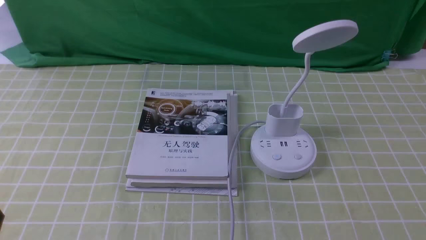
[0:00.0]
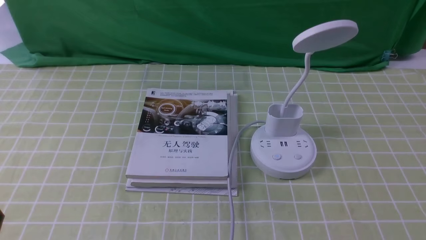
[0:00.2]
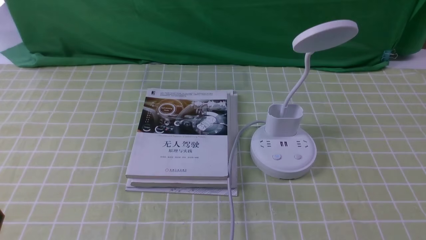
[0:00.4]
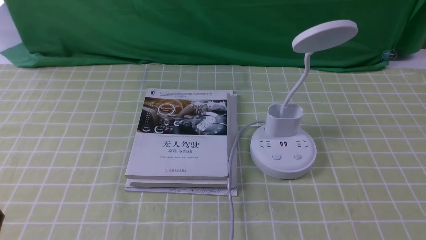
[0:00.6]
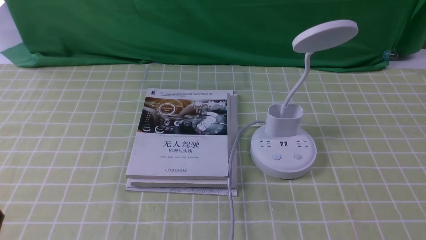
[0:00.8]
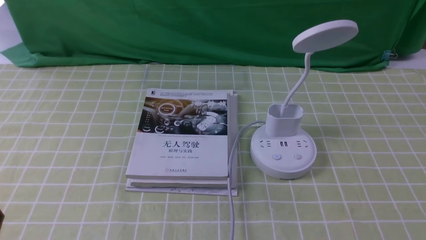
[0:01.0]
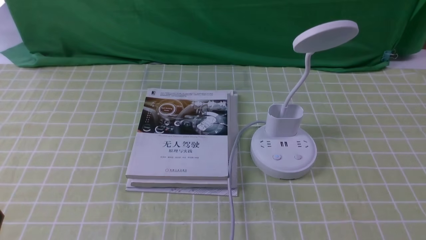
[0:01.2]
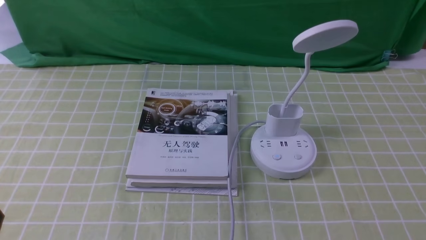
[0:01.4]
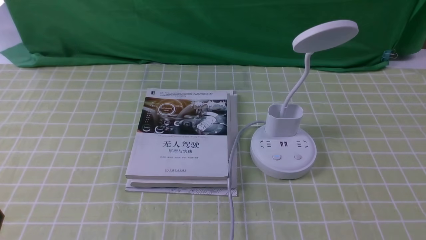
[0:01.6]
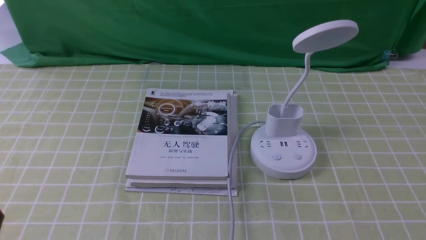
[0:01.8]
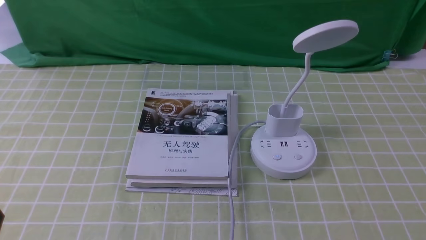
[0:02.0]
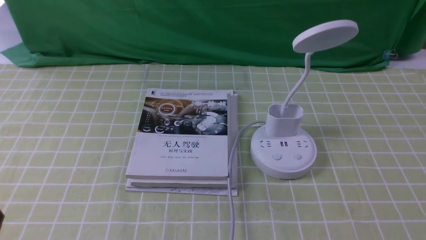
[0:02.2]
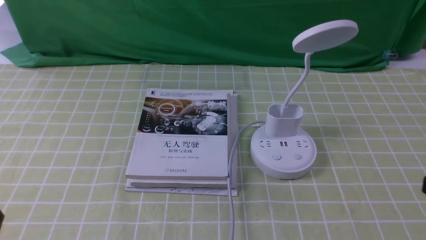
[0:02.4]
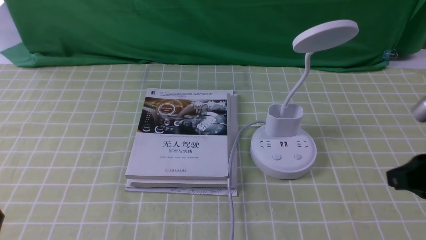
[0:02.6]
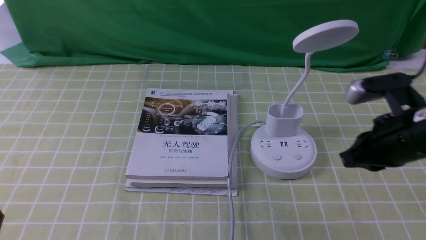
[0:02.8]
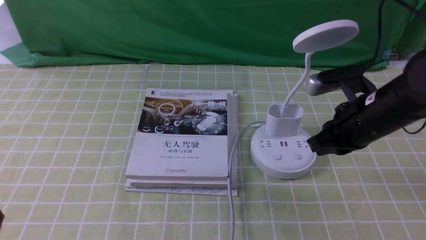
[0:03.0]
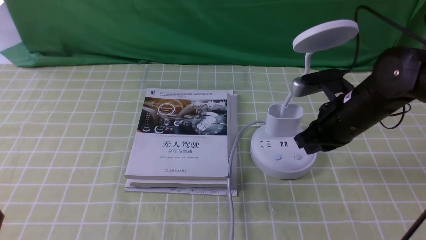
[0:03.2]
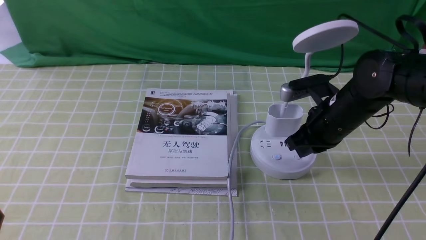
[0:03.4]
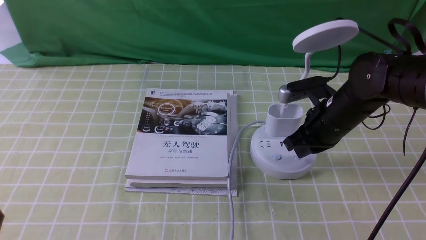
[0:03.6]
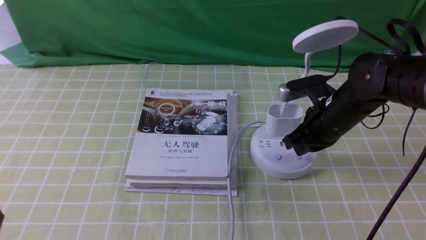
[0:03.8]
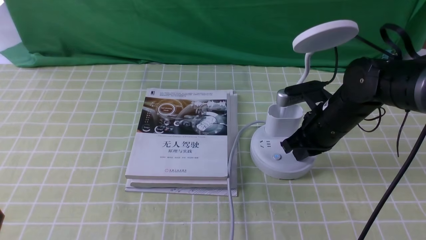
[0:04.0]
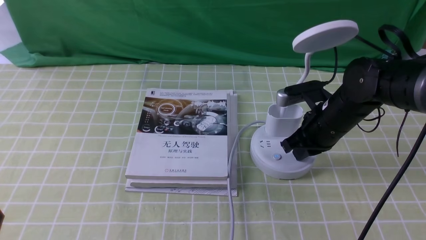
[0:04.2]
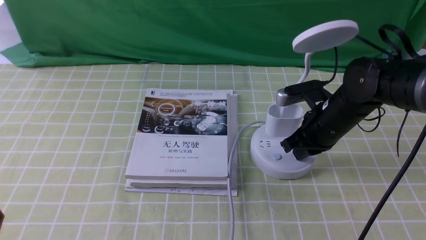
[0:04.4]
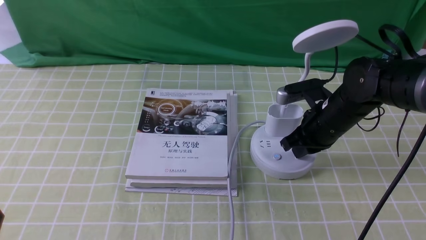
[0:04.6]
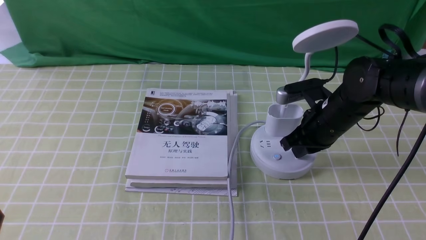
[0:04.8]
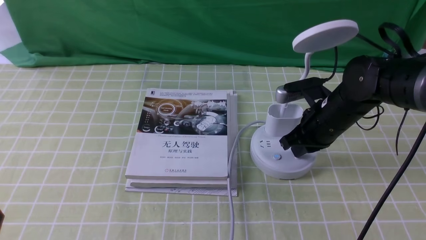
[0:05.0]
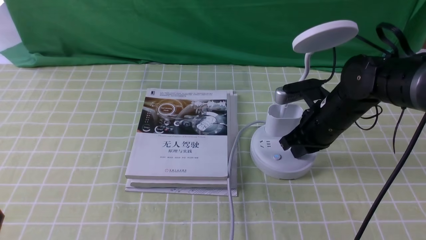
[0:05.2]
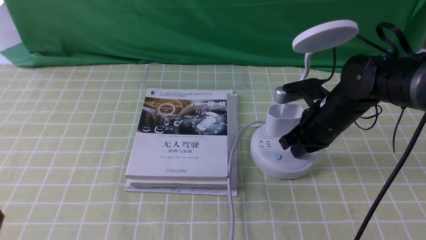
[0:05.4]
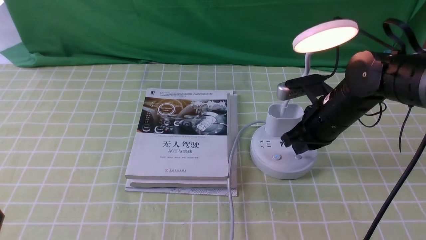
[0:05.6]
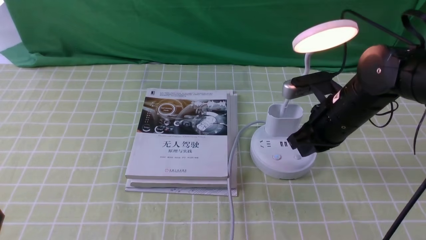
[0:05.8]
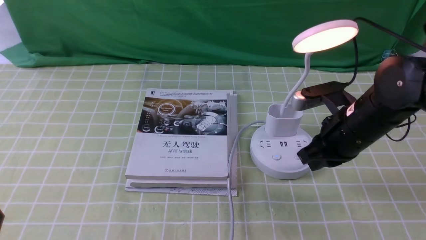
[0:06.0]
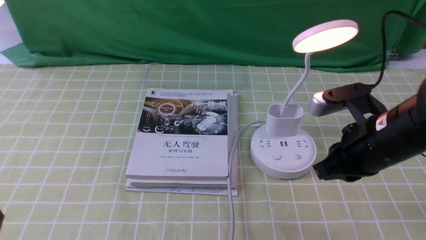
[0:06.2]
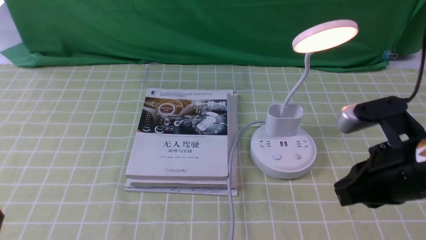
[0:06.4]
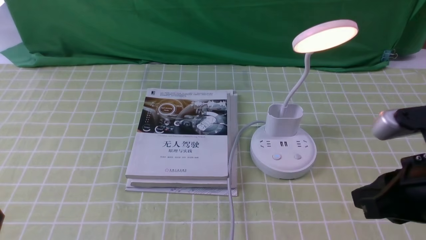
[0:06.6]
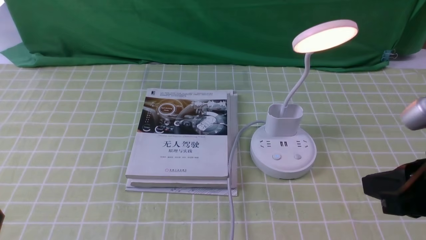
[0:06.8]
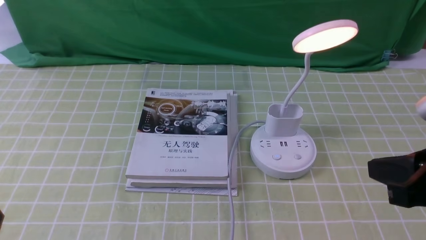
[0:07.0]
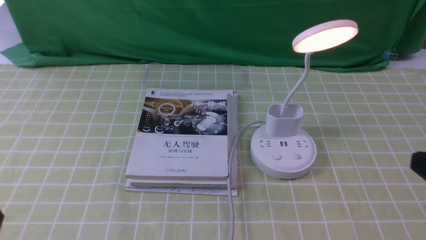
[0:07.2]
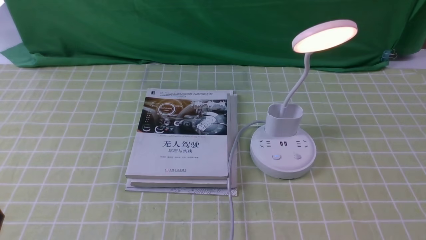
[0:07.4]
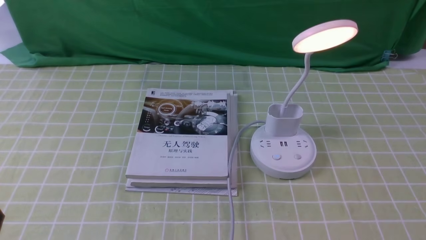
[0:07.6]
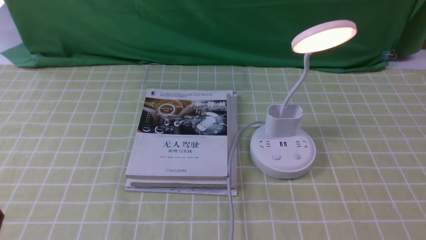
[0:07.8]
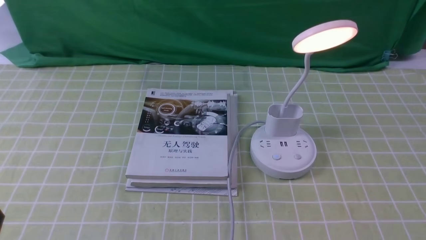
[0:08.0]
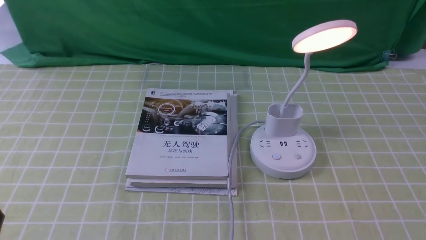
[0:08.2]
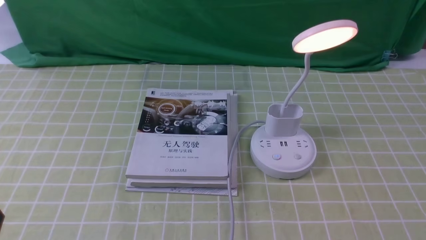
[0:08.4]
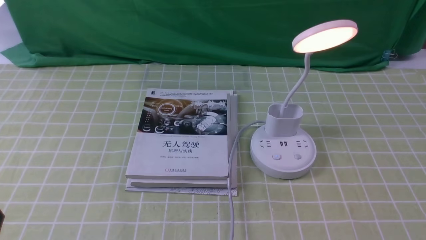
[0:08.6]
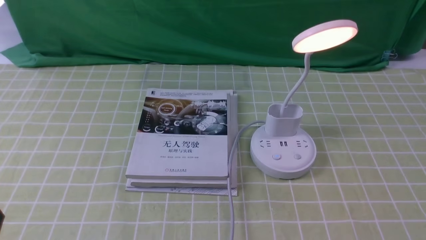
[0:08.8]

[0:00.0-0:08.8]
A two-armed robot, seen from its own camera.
Step, 0:00.0 to 0:05.8: use the right arm to press the button switch on the lamp holder.
0:00.0 to 0:01.4: Both grippers stay about where they are.
0:01.4 to 0:03.0: The right gripper goes roughly 25 cm forward and to the left, and closes up.
0:03.0 to 0:04.4: The right gripper goes some 10 cm downward and forward.
0:04.4 to 0:05.8: The grippers move only a little.
0:05.8 to 0:07.4: The right gripper shifts about 30 cm backward and to the right.
